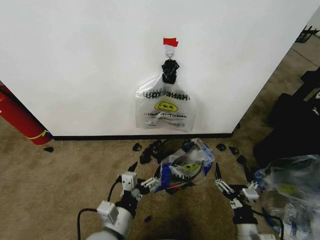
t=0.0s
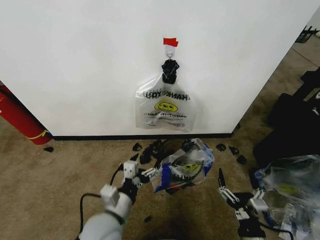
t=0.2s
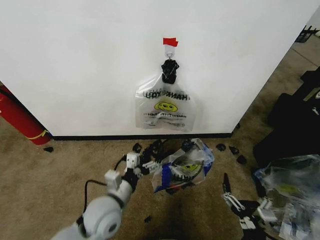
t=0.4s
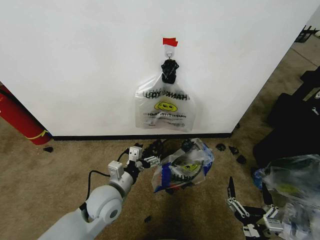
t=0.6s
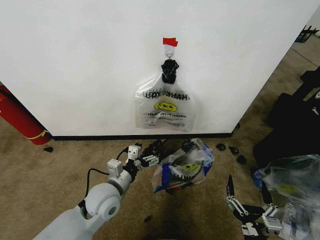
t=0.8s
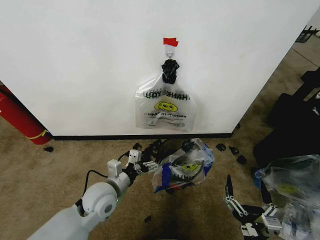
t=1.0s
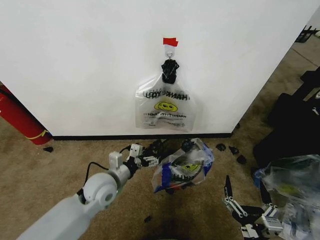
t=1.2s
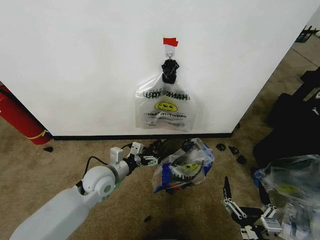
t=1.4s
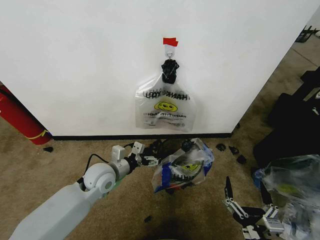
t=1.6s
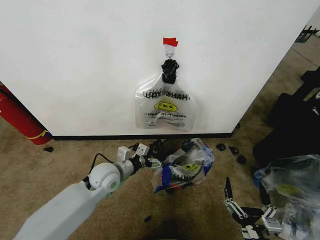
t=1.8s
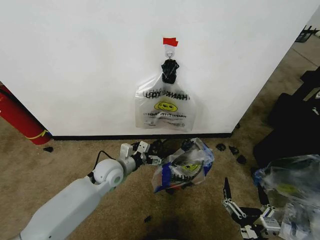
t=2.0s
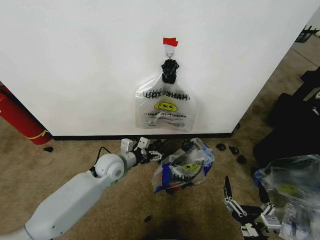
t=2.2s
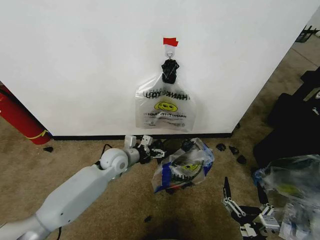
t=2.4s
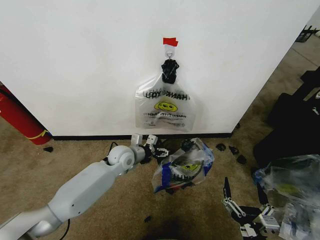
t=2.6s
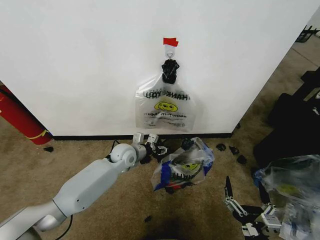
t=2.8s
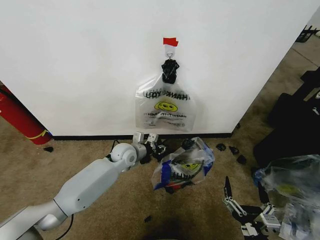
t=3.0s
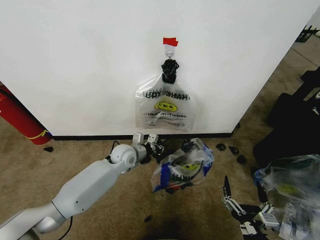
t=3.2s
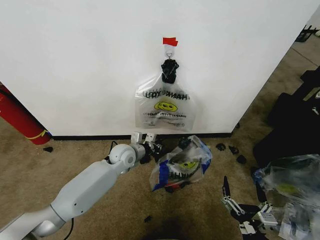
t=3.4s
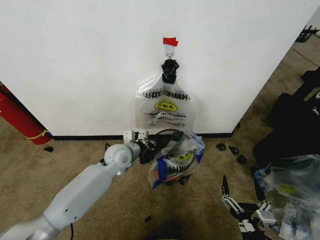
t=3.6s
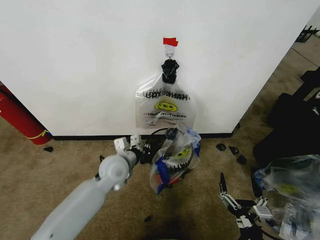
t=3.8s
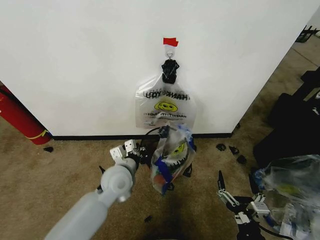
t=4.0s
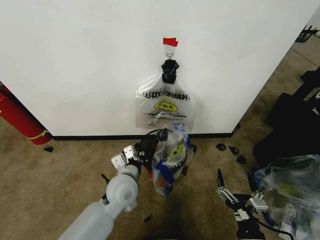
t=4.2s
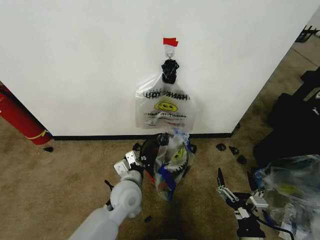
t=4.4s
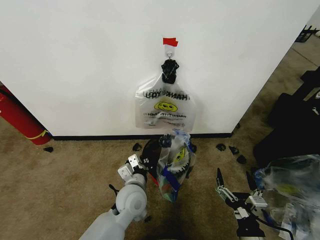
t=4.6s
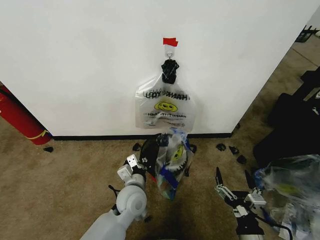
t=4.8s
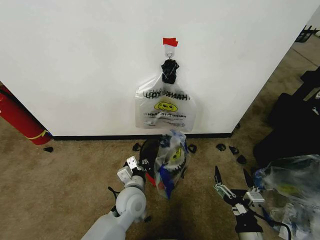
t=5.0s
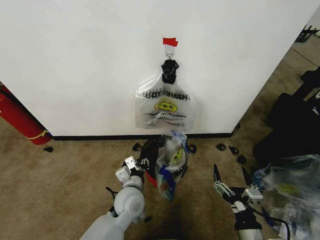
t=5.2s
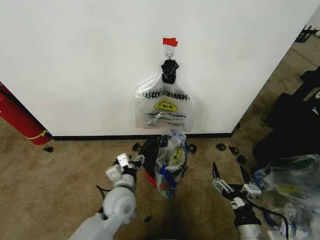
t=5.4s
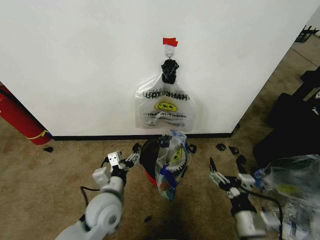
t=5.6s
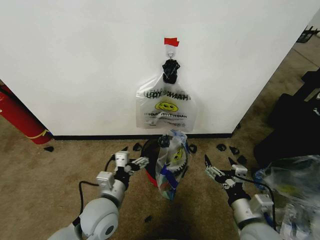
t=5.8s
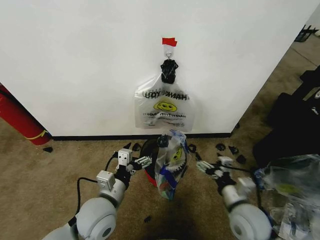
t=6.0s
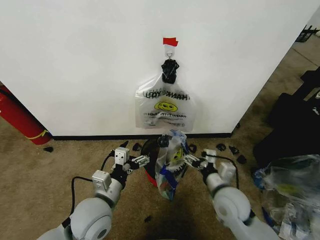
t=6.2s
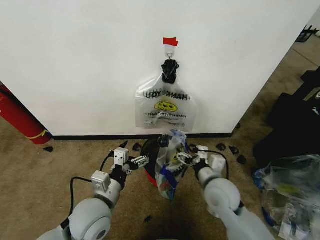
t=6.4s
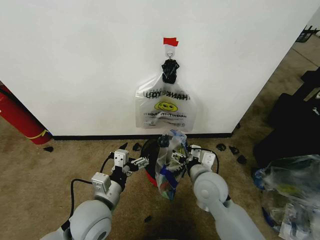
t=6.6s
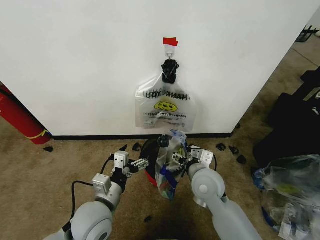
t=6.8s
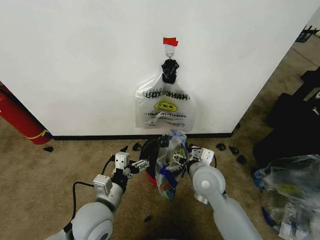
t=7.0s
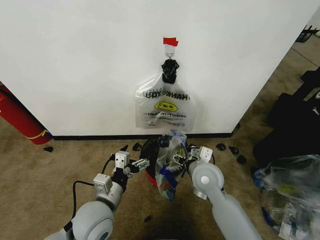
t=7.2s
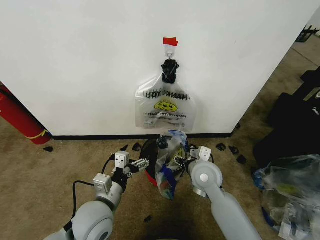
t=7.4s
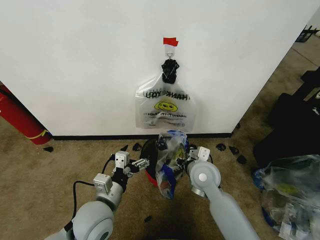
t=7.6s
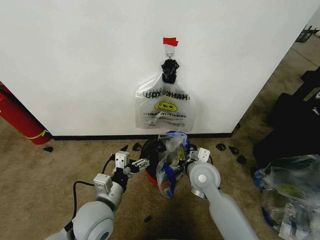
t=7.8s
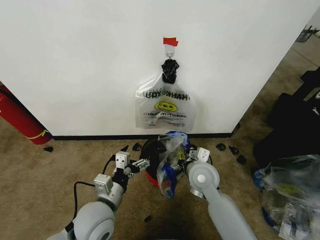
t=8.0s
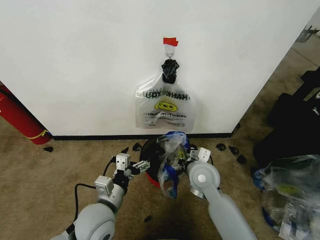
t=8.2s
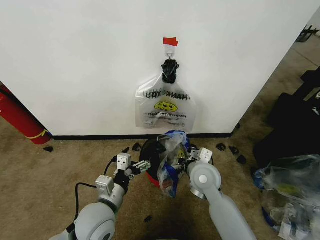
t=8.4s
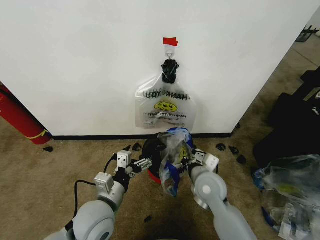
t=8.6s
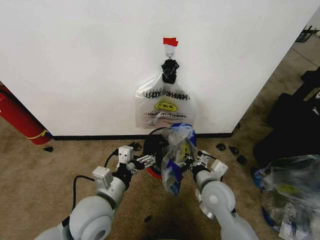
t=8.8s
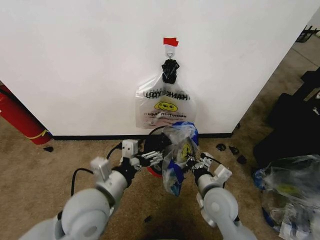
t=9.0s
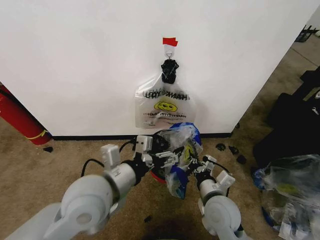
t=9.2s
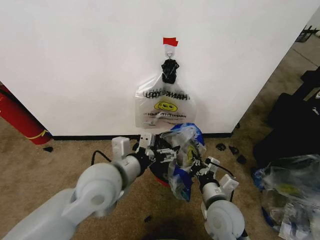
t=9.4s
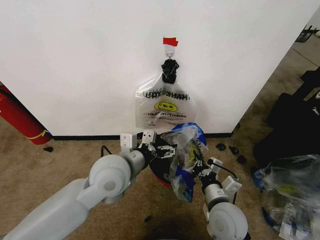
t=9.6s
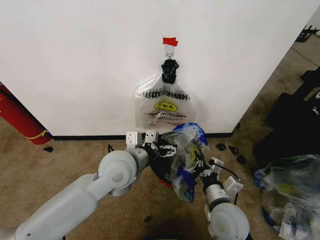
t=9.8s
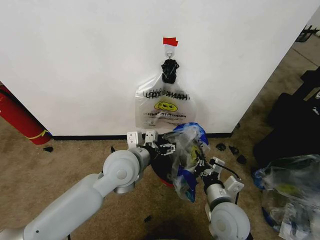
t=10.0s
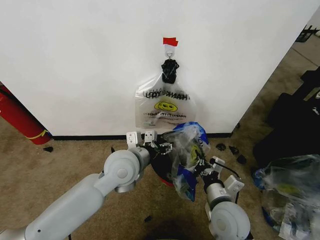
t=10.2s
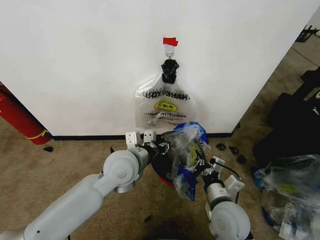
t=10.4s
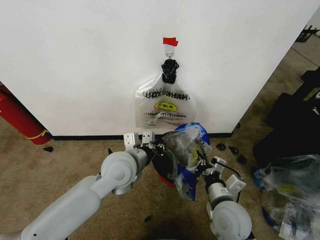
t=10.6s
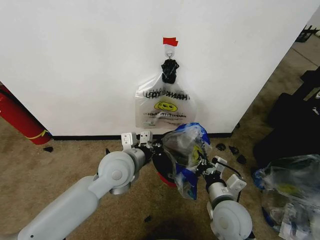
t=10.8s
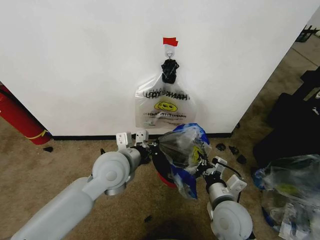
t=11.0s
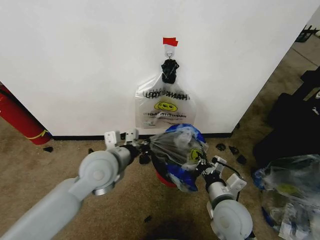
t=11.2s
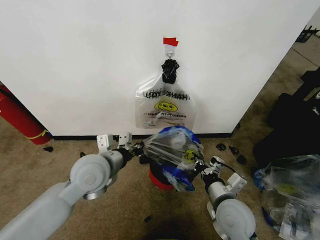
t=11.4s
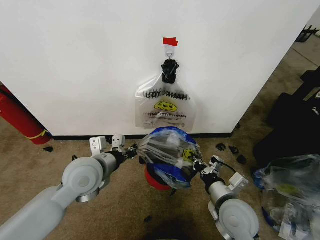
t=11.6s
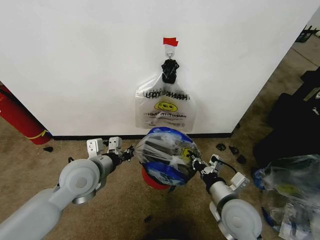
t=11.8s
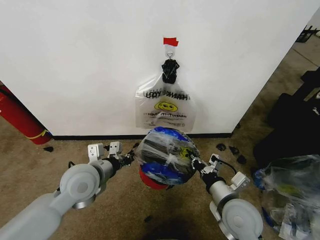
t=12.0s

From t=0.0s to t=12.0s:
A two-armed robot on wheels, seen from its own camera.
Task of the whole recording: Pick up the garbage bag from the wall and place it over the trash bin.
From t=0.0s to t=1.6s: The right gripper moves backward and upward, about 10 cm; the left gripper moves forward, about 20 cm.
From t=1.6s to t=3.0s: The left gripper shifts roughly 10 cm forward and to the right, and closes.
From t=3.0s to t=4.4s: The left gripper travels backward by roughly 15 cm.
From t=4.4s to t=6.0s: The left gripper heads backward and to the left, covering roughly 10 cm, and opens, while the right gripper moves forward, about 10 cm.
From t=6.0s to t=7.6s: The right gripper is displaced forward and to the left by approximately 15 cm, and closes up.
From t=7.6s to t=9.0s: The left gripper heads upward, covering approximately 10 cm. Meanwhile the right gripper is displaced backward by approximately 10 cm, and closes up.
From t=9.0s to t=10.4s: The left gripper goes some 10 cm forward and to the right, and closes its fingers.
From t=10.4s to t=12.0s: The left gripper heads to the left, covering roughly 10 cm, and closes its fingers.

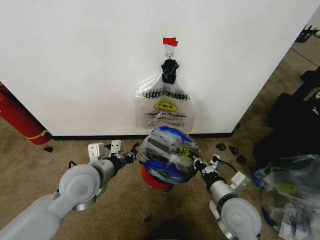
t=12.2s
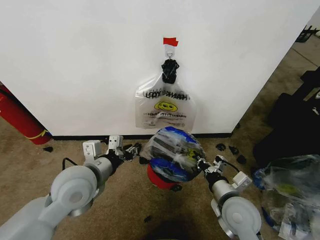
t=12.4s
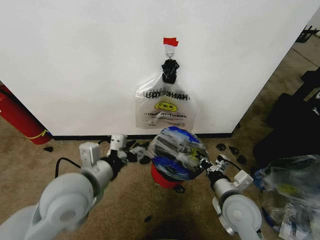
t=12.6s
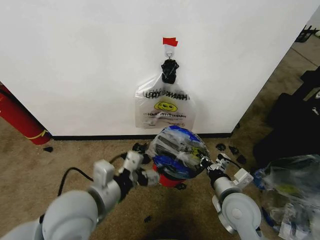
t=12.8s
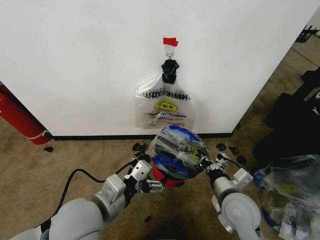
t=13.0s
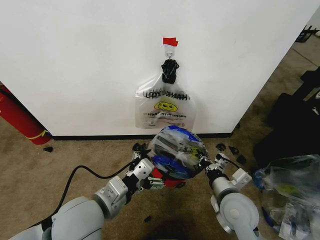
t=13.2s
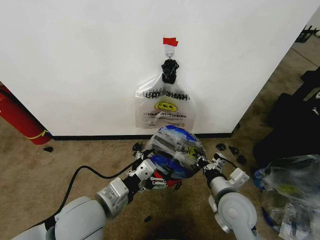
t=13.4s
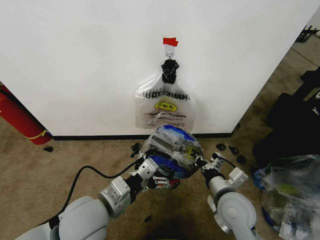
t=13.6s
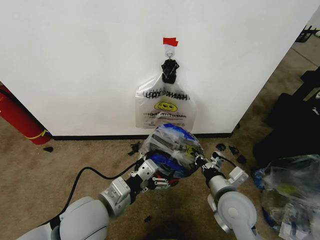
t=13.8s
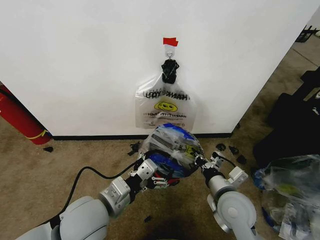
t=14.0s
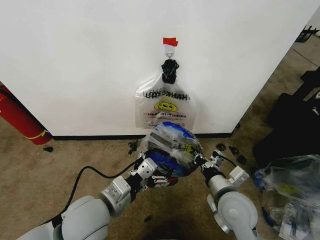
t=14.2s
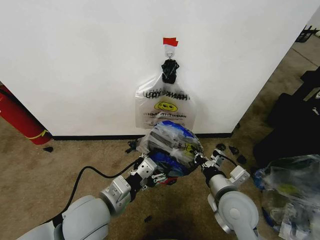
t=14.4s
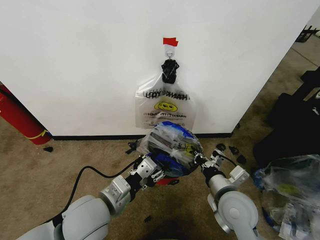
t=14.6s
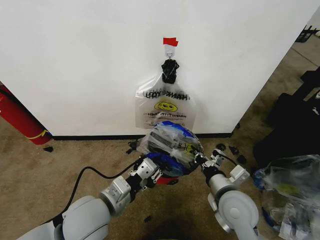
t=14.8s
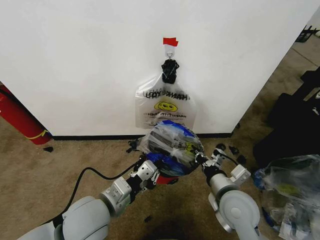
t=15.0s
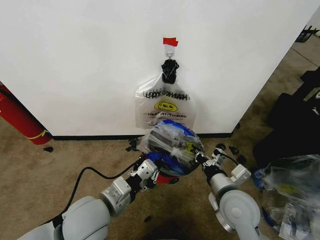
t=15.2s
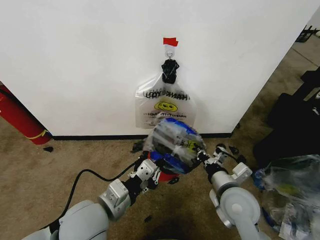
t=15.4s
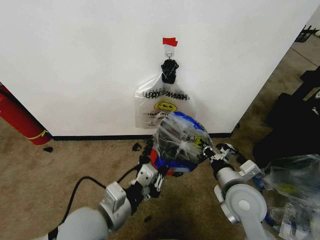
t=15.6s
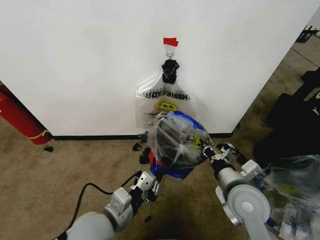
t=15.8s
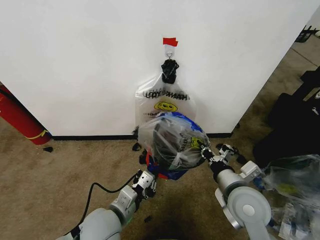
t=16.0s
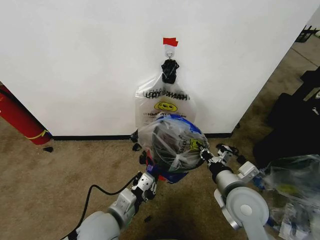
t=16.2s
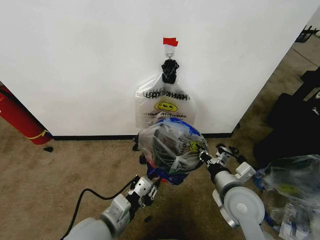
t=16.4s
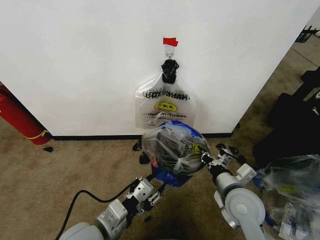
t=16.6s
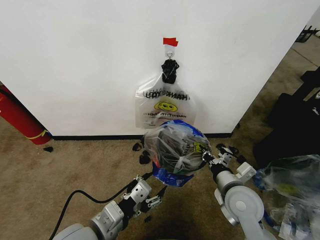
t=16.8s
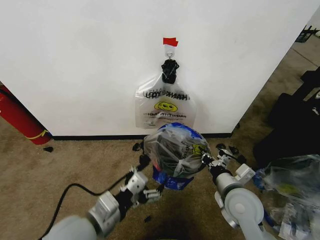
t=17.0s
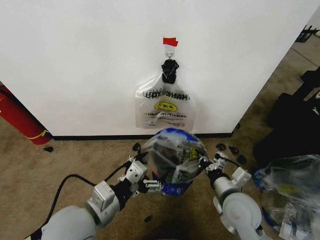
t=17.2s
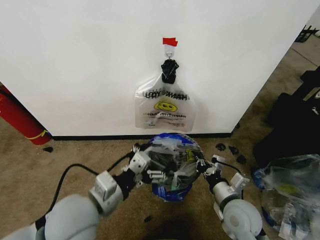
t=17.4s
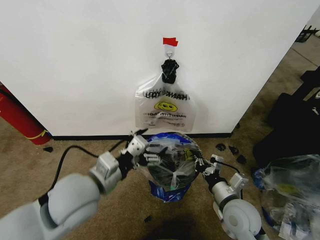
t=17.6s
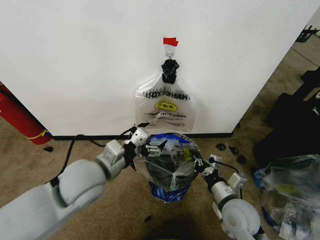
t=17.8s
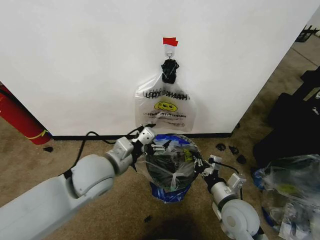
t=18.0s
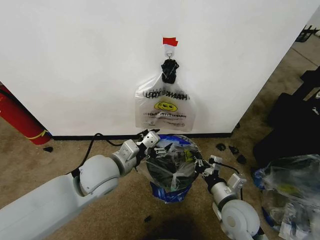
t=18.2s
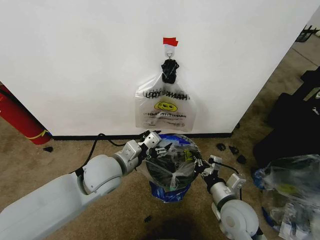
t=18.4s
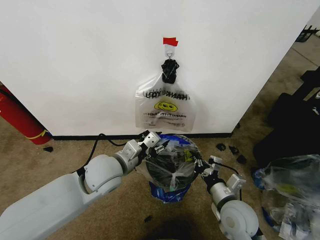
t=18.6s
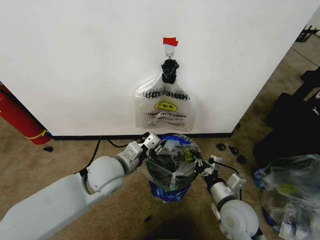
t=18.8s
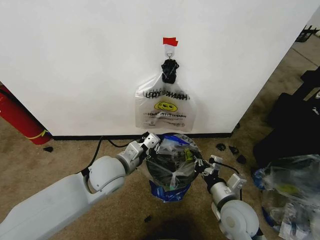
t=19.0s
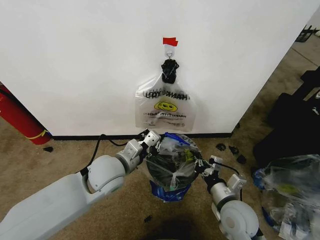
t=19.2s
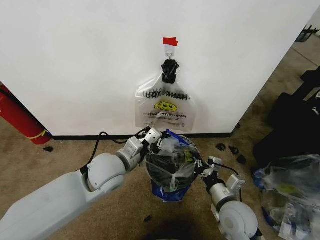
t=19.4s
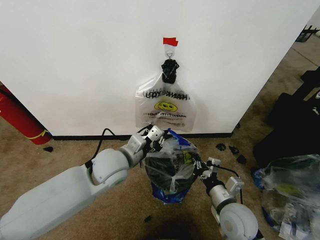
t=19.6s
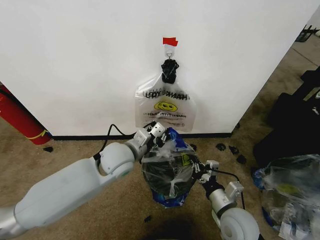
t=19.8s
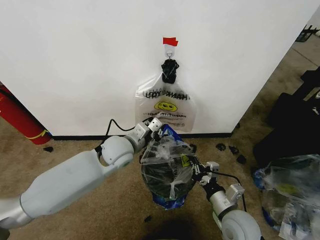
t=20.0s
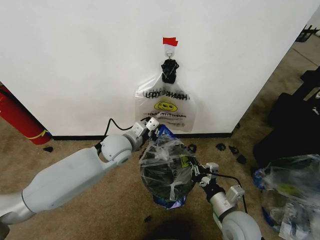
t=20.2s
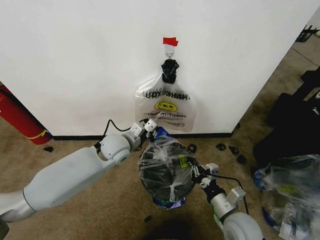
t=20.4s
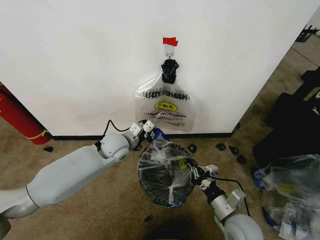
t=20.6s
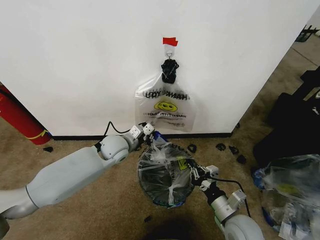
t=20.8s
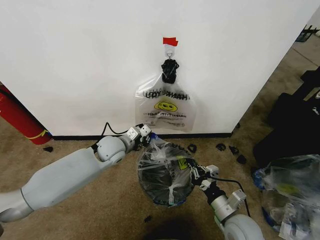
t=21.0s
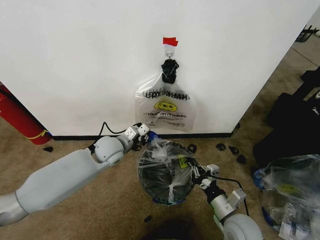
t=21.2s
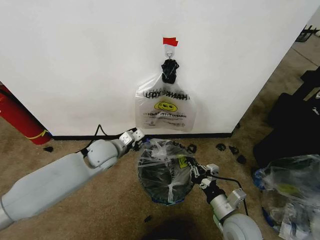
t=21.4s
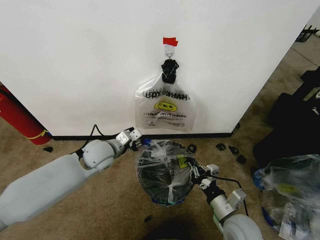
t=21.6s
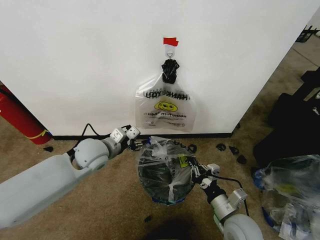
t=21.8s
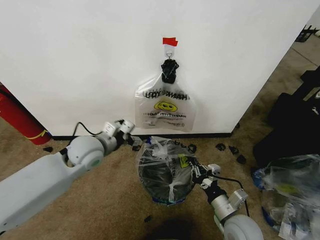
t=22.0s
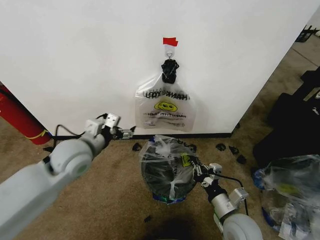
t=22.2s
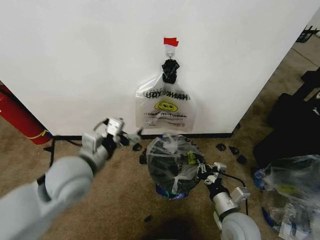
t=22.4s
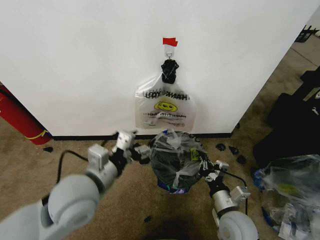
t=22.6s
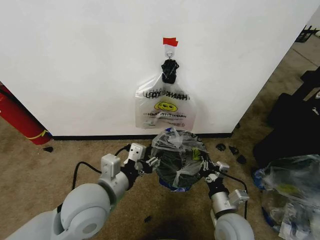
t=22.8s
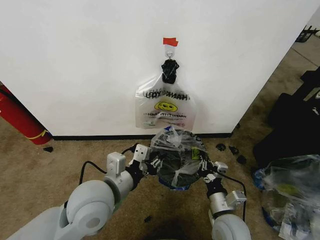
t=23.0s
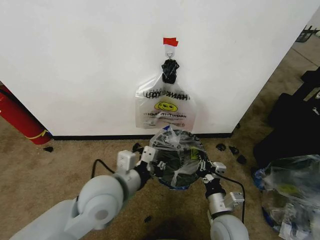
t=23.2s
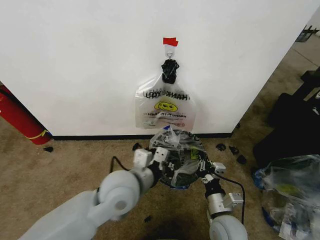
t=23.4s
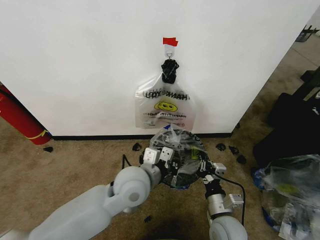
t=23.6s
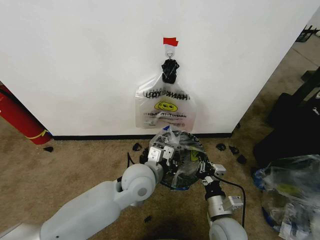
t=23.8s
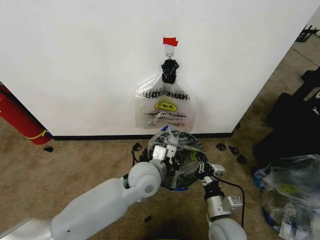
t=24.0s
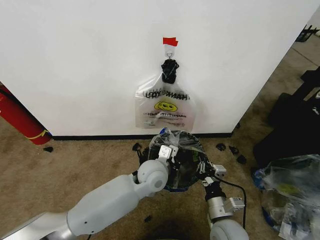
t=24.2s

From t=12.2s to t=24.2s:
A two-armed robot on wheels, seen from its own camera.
Task of the whole recording: Pick up the garbage bag from the wall and place it over the trash bin.
From t=12.2s to t=13.8s: The left gripper moves backward, approximately 10 cm, and opens up.
From t=13.8s to t=15.2s: The left gripper closes its fingers.
From t=15.2s to t=16.6s: The left gripper shifts some 5 cm backward, reaches approximately 5 cm downward, then returns, and opens.
From t=16.6s to t=18.2s: The left gripper goes approximately 15 cm forward. The right gripper travels downward by approximately 5 cm.
From t=18.2s to t=19.8s: The left gripper goes approximately 5 cm forward, and closes.
From t=19.8s to t=21.2s: The left gripper travels forward by some 5 cm.
From t=21.2s to t=22.6s: The left gripper moves backward and upward, about 20 cm, and opens.
From t=22.6s to t=24.2s: The left gripper travels to the right, downward and forward by about 20 cm, and closes up.
